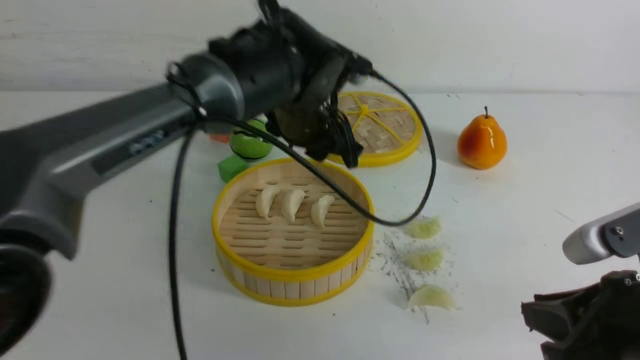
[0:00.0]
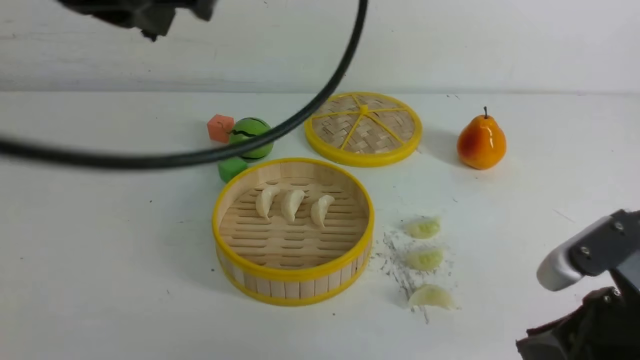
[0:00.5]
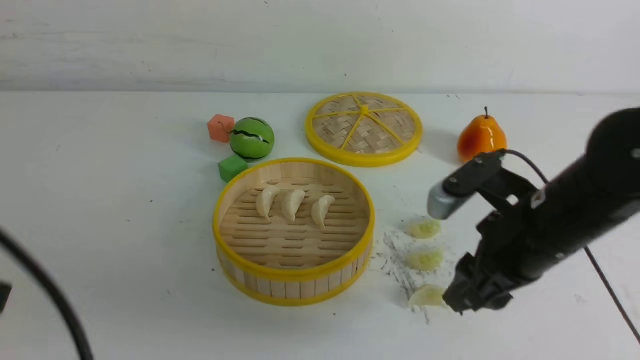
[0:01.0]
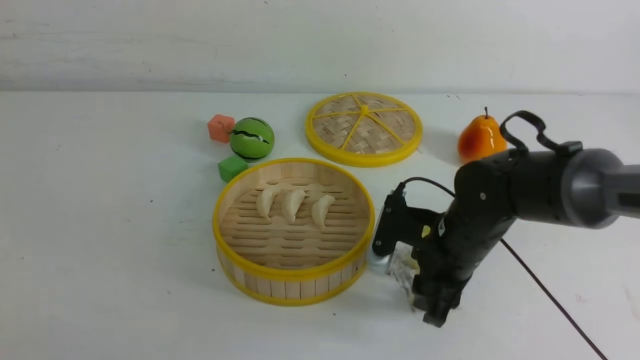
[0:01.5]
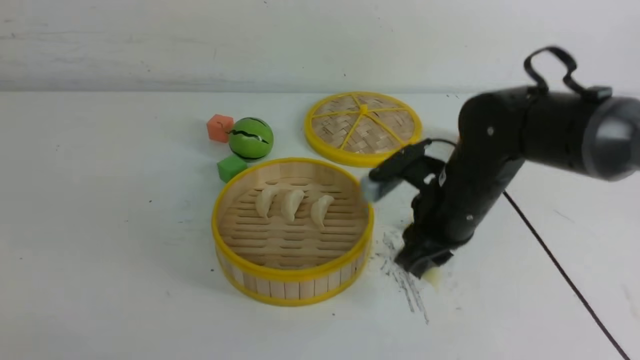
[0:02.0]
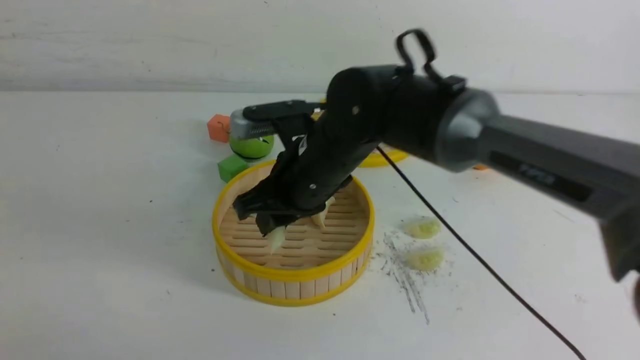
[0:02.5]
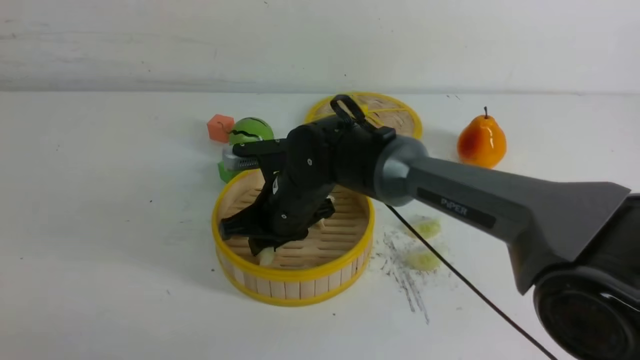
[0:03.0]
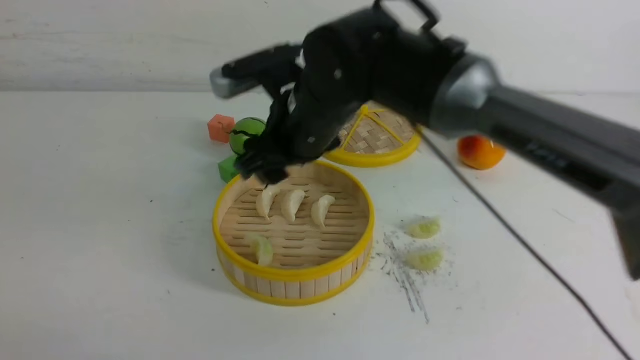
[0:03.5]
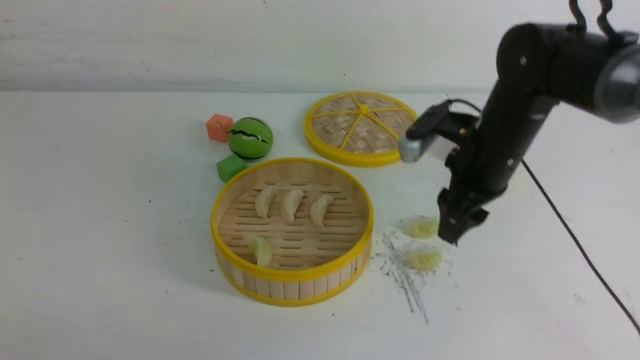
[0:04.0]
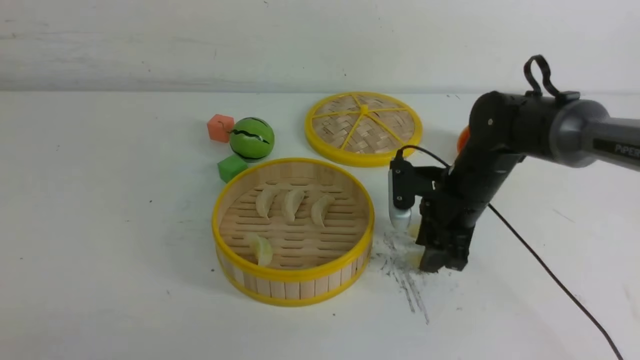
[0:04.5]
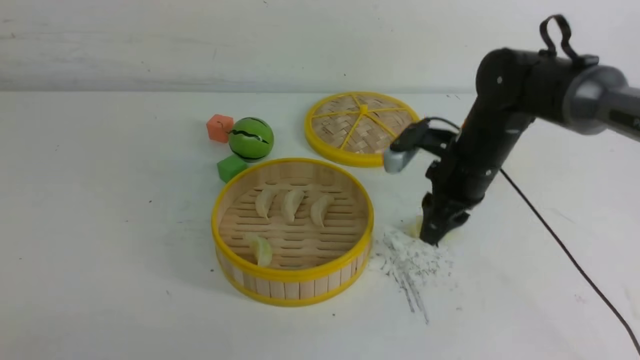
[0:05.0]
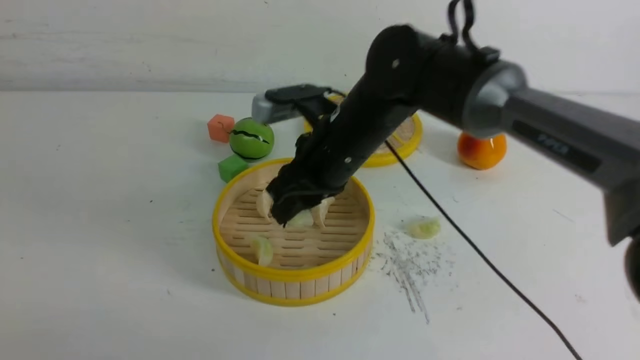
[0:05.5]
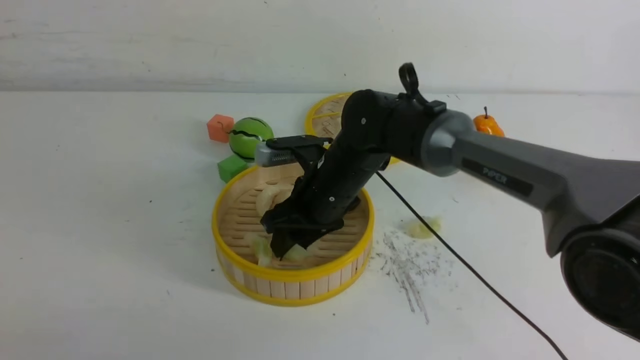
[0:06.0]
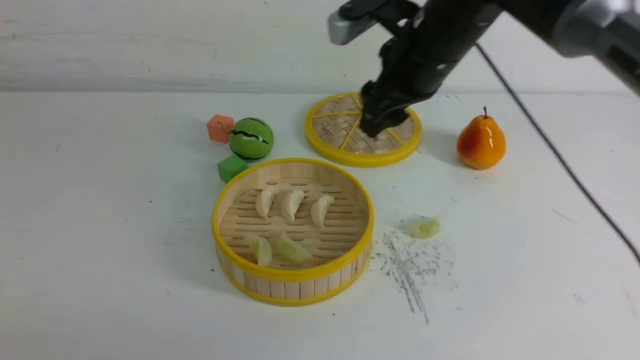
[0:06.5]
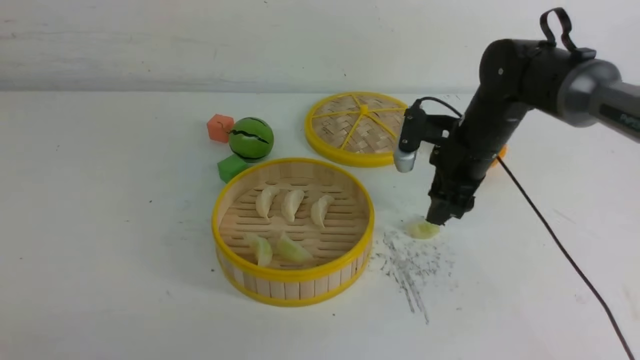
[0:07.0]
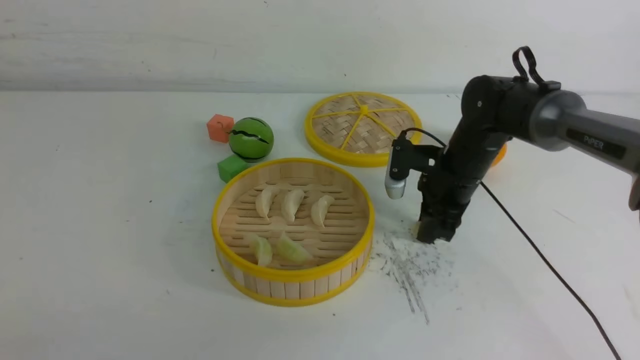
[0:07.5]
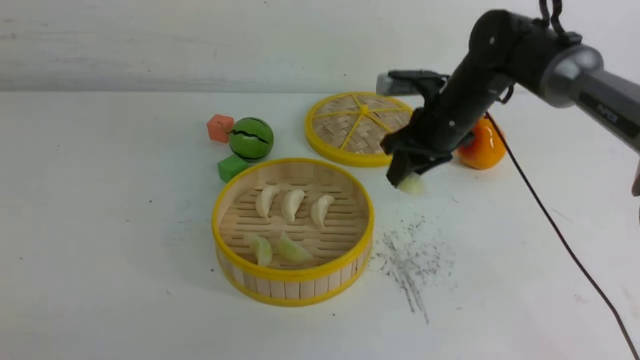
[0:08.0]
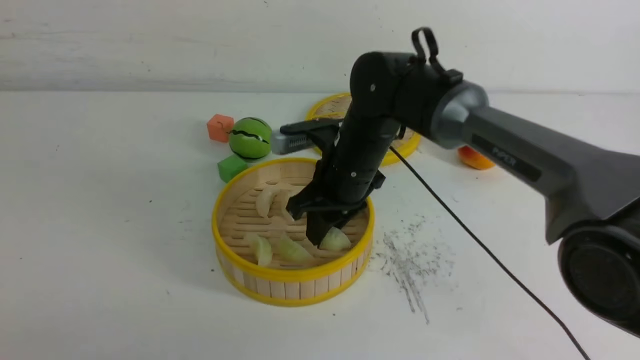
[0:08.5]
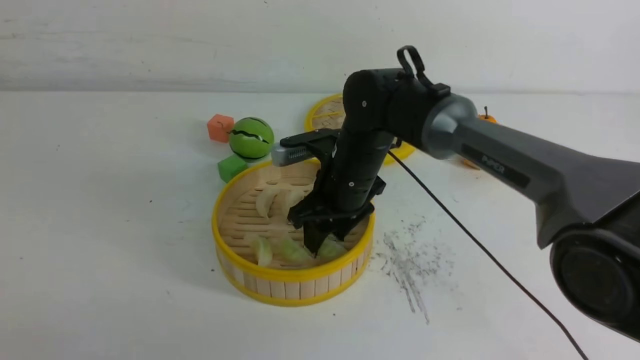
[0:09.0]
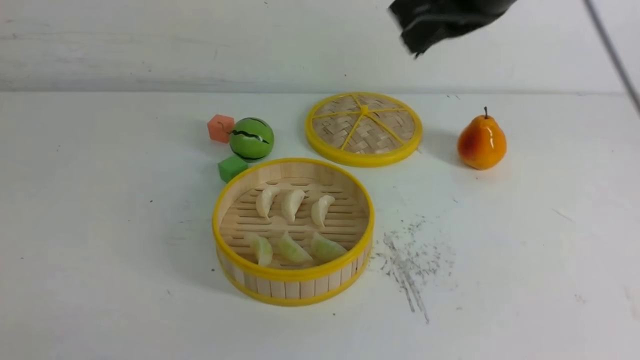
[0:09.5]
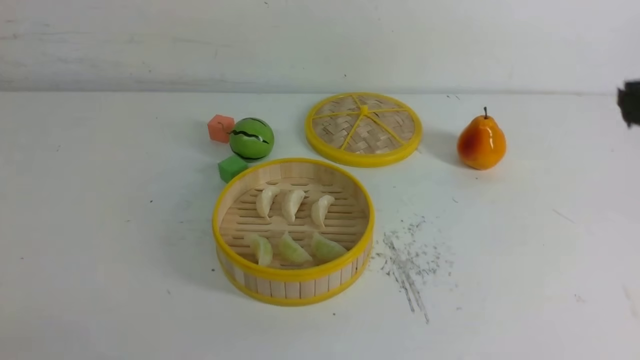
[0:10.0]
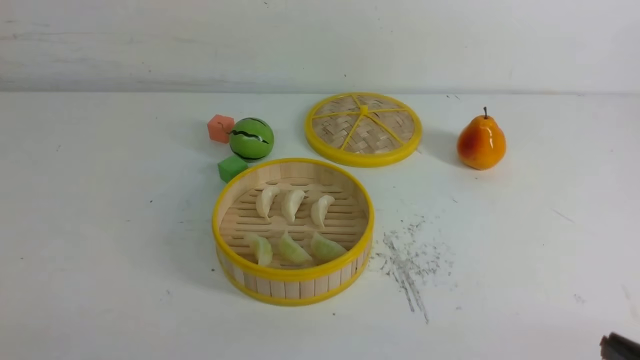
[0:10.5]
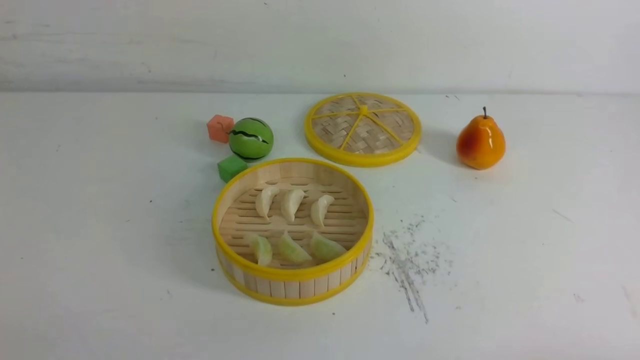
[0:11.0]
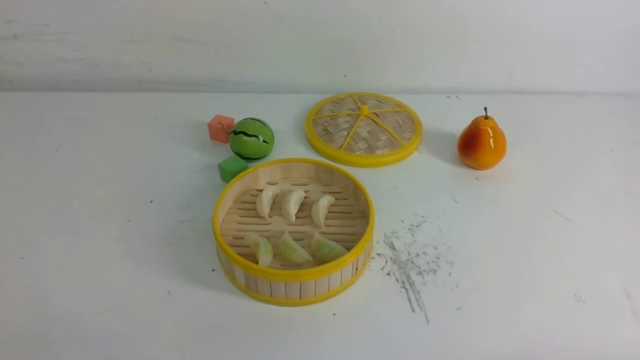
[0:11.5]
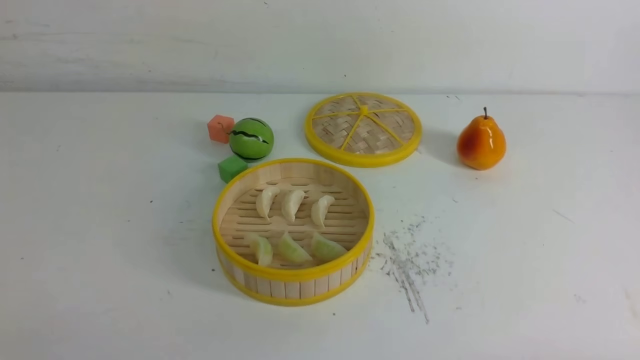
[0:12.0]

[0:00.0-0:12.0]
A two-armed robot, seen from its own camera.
Task of the whole recording: put the dumplings into the steamer on the white table.
Step, 0:00.0 to 0:01.5: use the right arm to grab a dumpling.
Step, 0:02.0 to 0:03.0: use the right arm to put the dumpling into the steamer.
Step, 0:03.5 to 0:04.5: use the right arm to grab a dumpling.
Step, 0:05.0 to 0:06.0: use the right arm to put the dumpling into the steamer.
Step, 0:06.5 to 0:07.5: use the right arm to grab a dumpling.
Step, 0:08.0 to 0:09.0: use the right arm to put the dumpling into the steamer.
0:00.0 to 0:02.0: The right gripper travels forward and to the left by some 20 cm, and opens and closes again. Meanwhile the left gripper is displaced backward and to the left by some 40 cm, and closes up.
0:02.0 to 0:04.0: The right gripper travels forward by some 5 cm, moves about 15 cm to the left and comes back, and opens up.
0:04.0 to 0:06.0: The right gripper heads to the left, covering approximately 15 cm, and closes, then reopens.
0:06.0 to 0:08.0: The right gripper is displaced to the right by some 10 cm, and closes.
0:08.0 to 0:10.0: The right gripper shifts roughly 35 cm backward and upward, and closes its fingers.

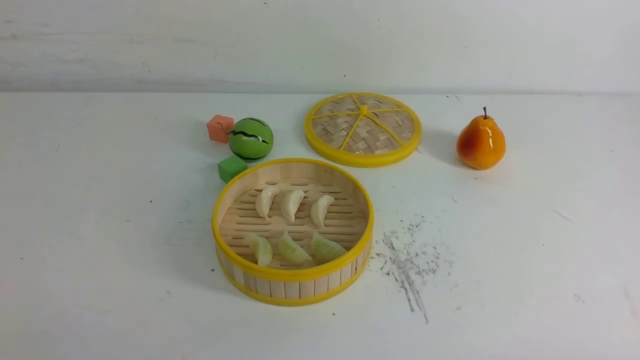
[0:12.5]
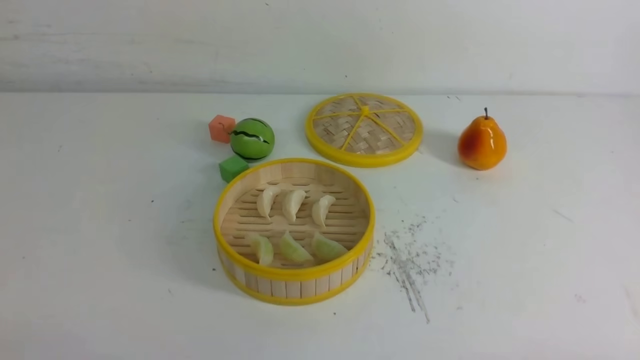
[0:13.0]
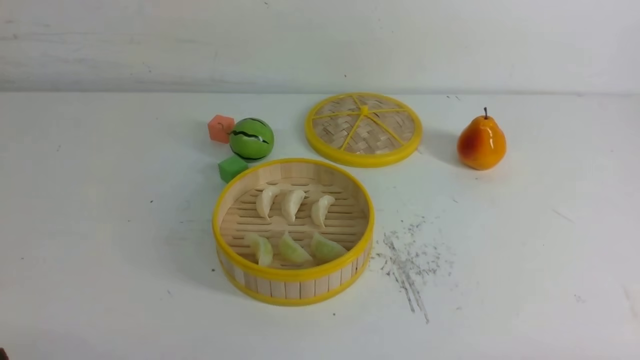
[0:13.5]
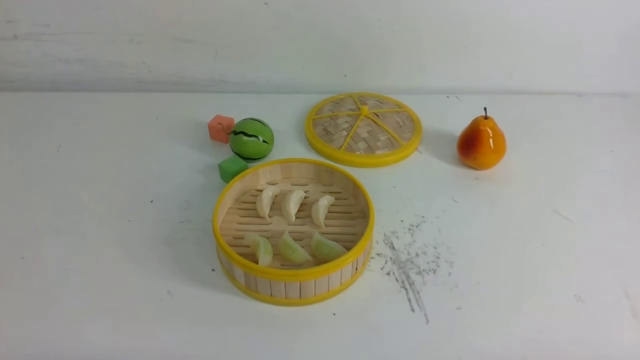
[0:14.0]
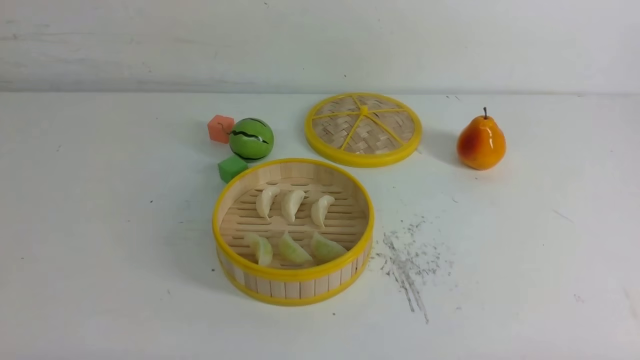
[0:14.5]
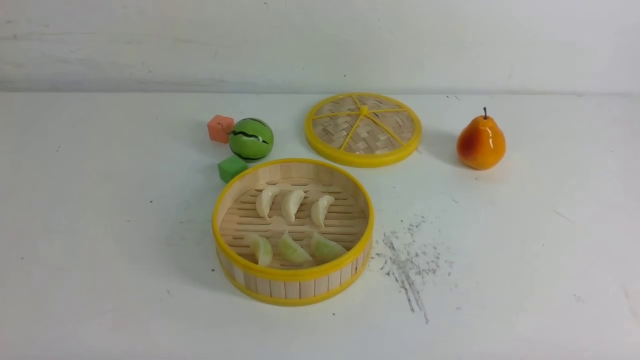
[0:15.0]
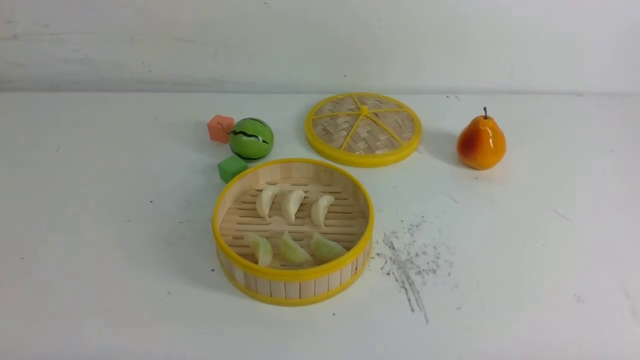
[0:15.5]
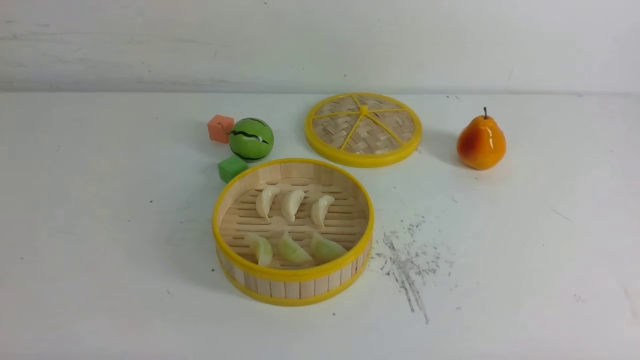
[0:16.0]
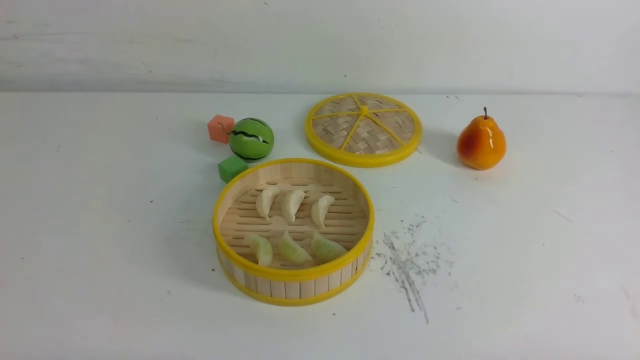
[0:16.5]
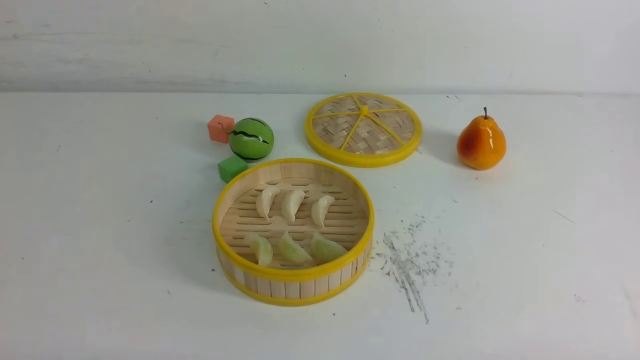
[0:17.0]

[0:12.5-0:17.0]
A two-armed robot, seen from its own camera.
Task of the whole recording: put the dumplings into the steamer on the white table.
0:14.5 to 0:17.0: Both grippers stay about where they are.

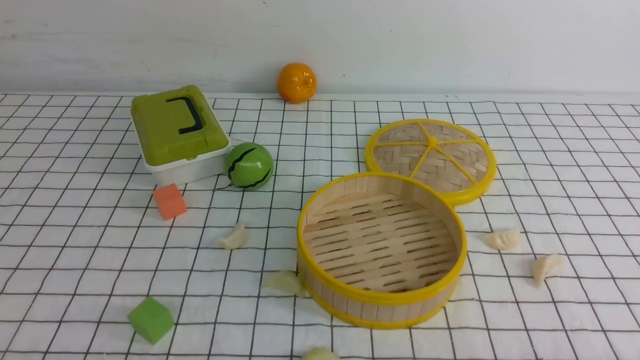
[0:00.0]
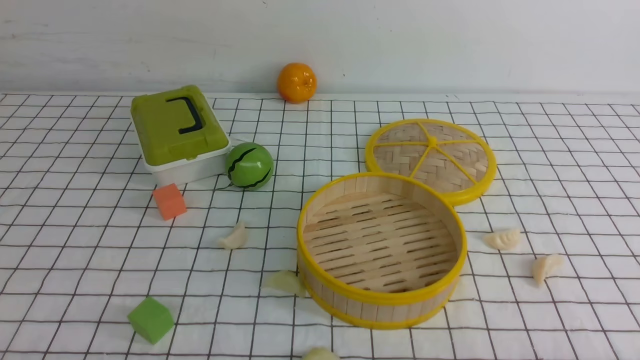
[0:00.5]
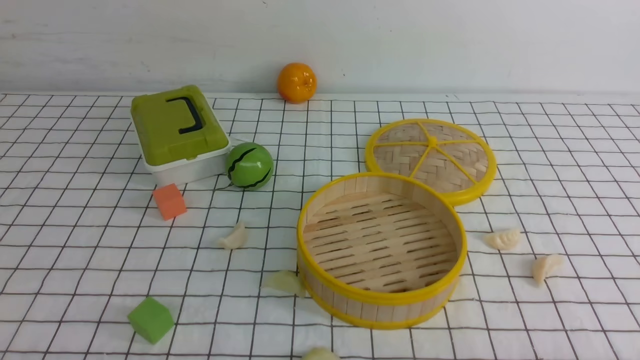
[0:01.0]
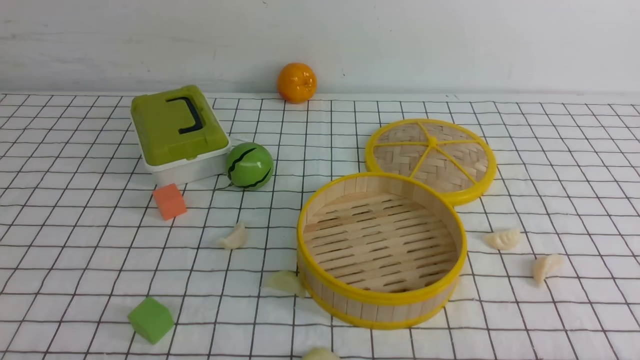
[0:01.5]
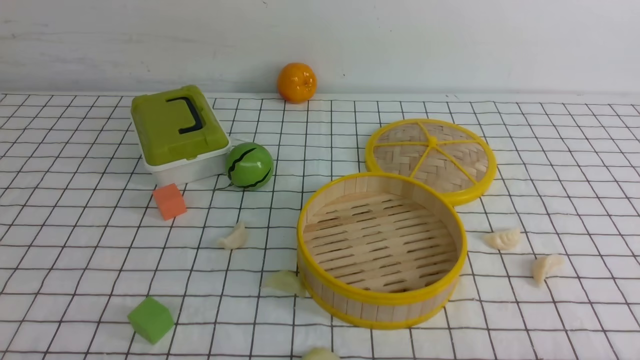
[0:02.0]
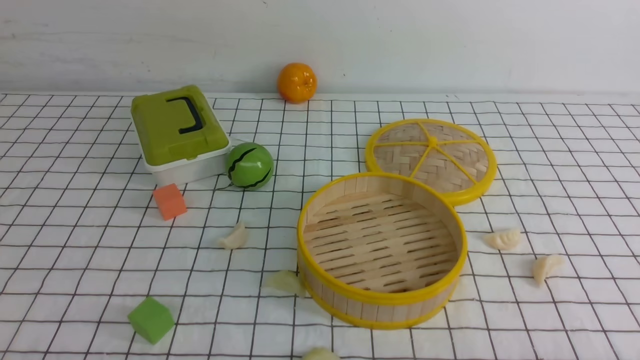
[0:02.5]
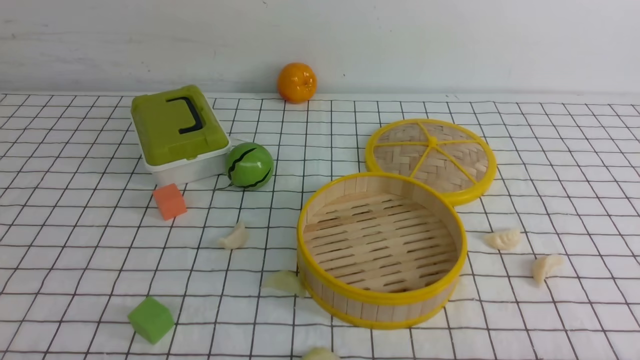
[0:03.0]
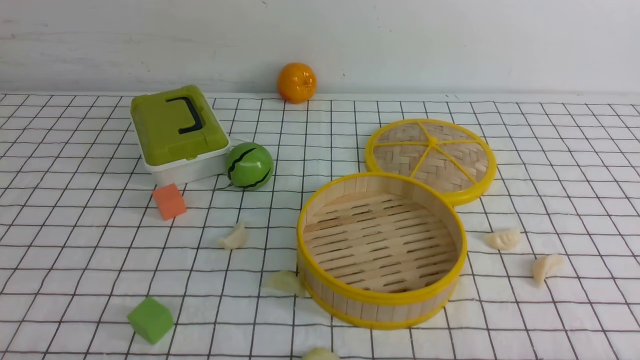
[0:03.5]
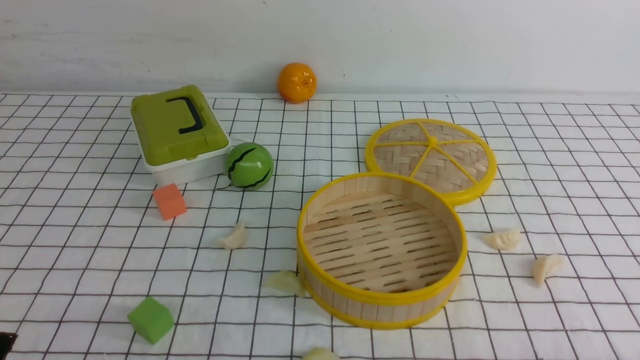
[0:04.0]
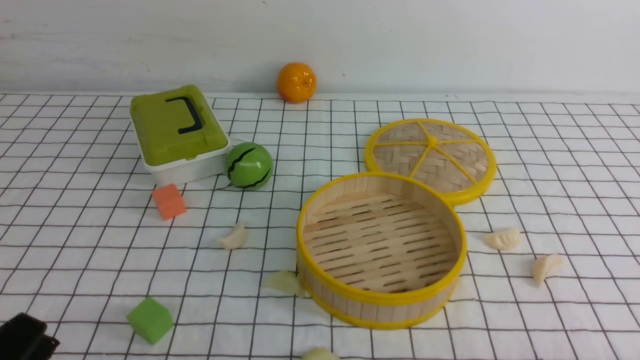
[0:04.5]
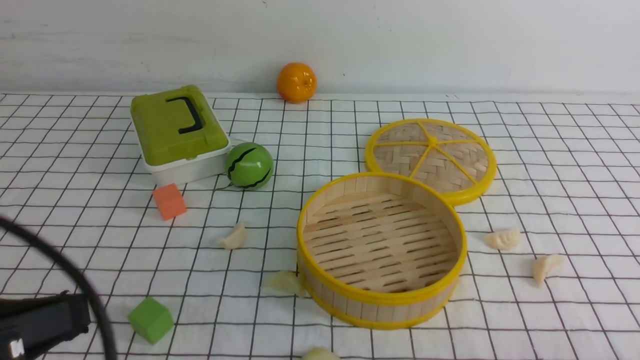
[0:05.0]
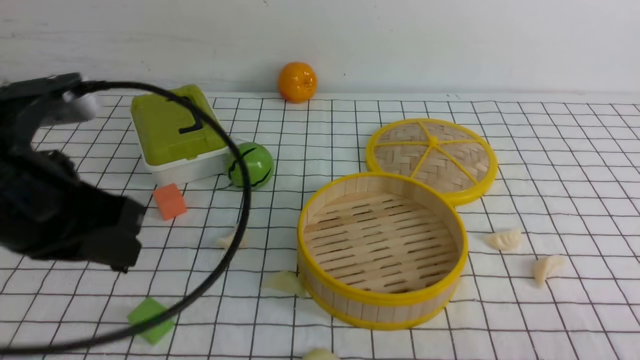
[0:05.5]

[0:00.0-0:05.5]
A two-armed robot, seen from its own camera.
Task of the whole recording: put the dumplings into the steamer on the table with the white tablecloth.
0:00.0 to 0:02.0: Both grippers stay put.
0:03.5 to 0:05.5: The left gripper travels upward and forward by roughly 25 cm, and closes its fingers, while the right gripper moves upward, about 10 cm.
